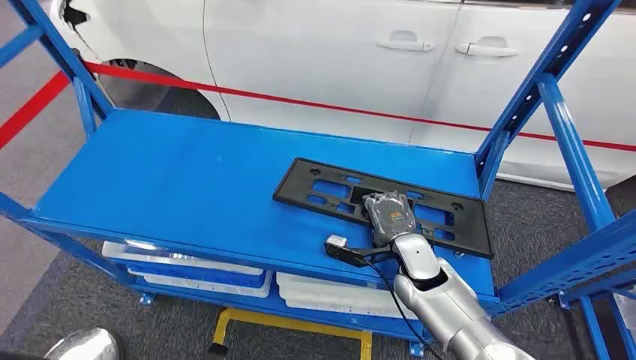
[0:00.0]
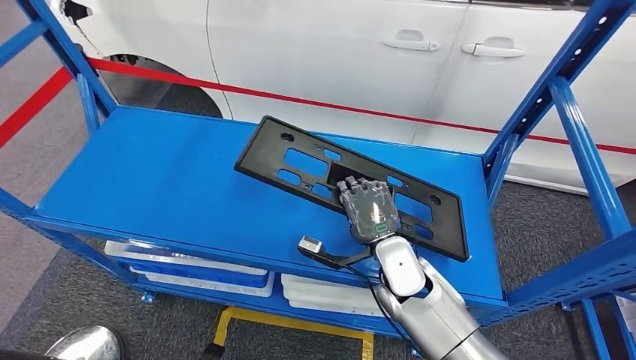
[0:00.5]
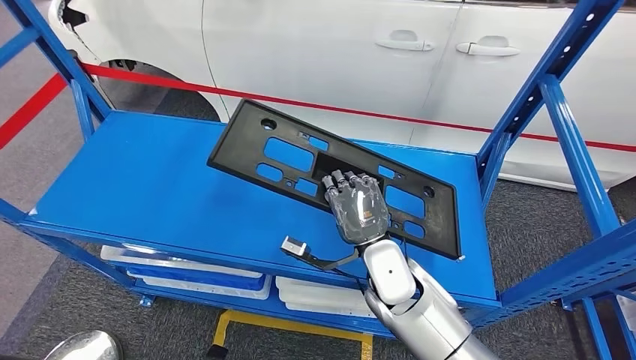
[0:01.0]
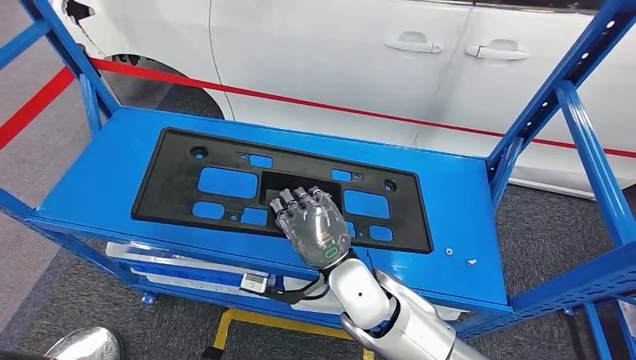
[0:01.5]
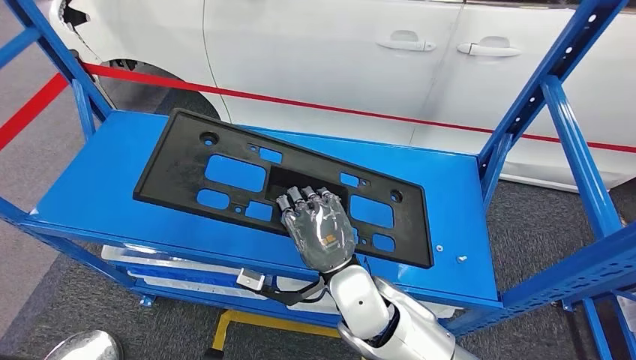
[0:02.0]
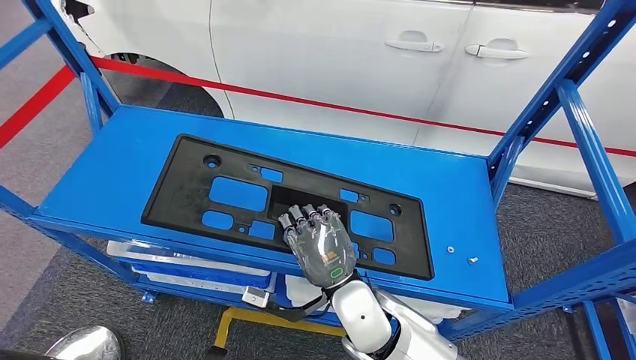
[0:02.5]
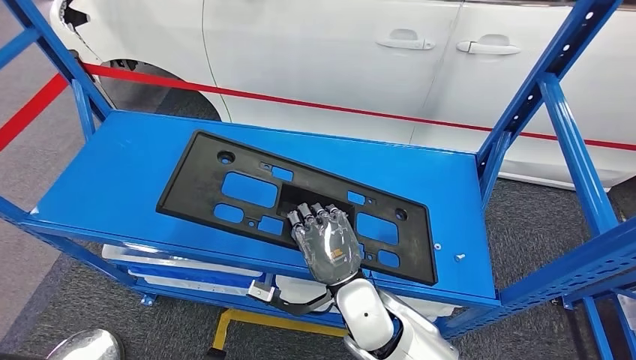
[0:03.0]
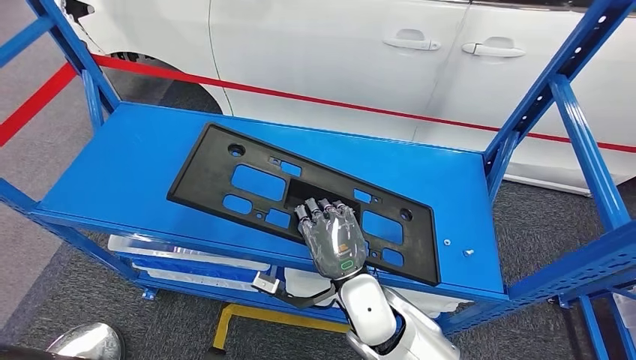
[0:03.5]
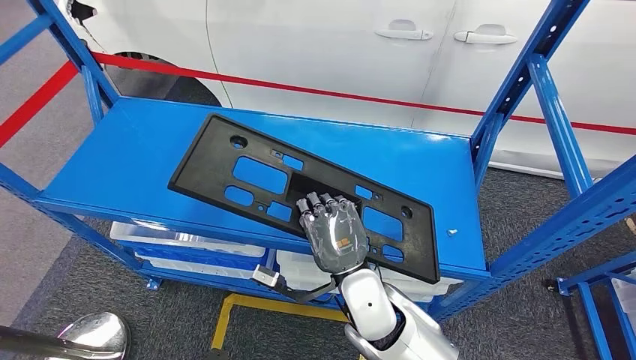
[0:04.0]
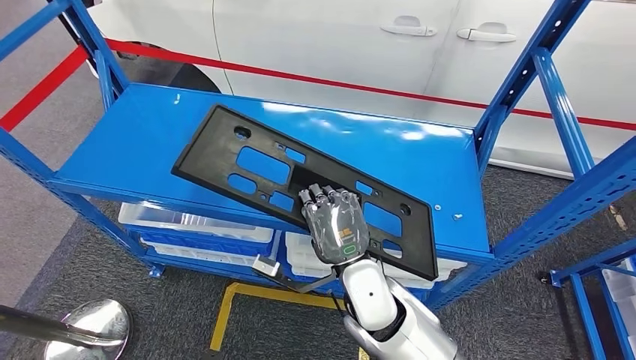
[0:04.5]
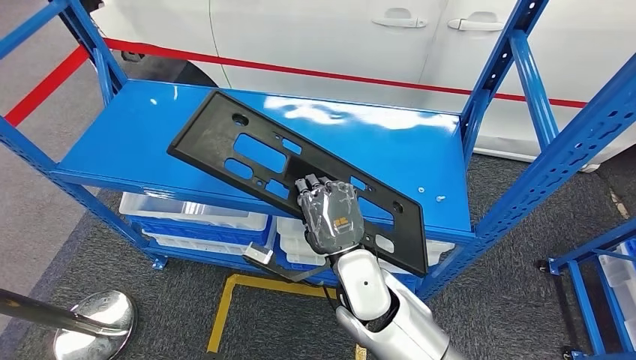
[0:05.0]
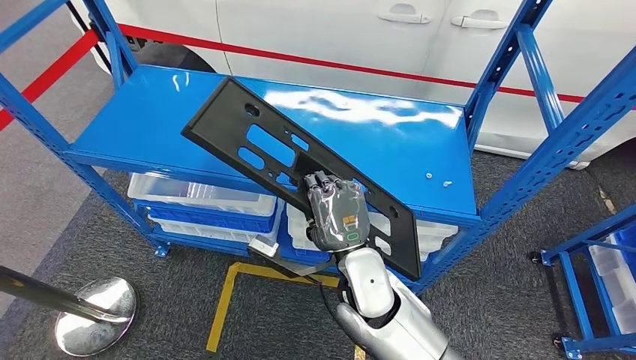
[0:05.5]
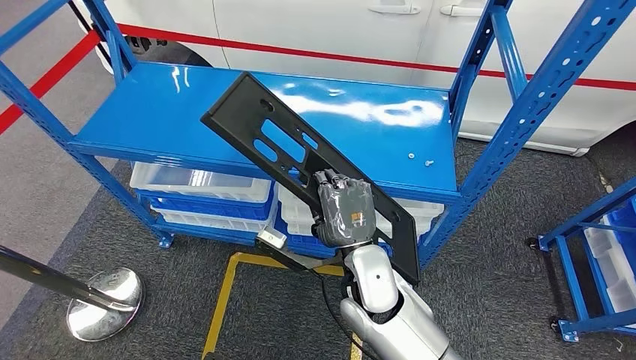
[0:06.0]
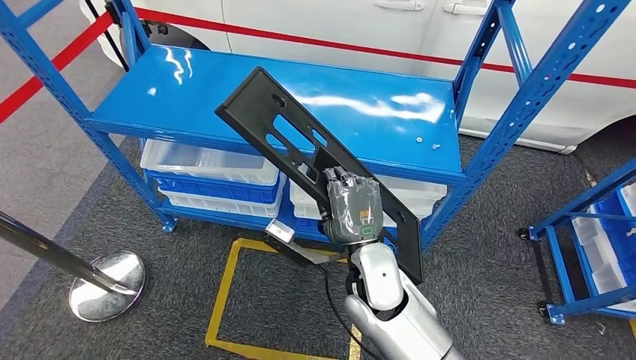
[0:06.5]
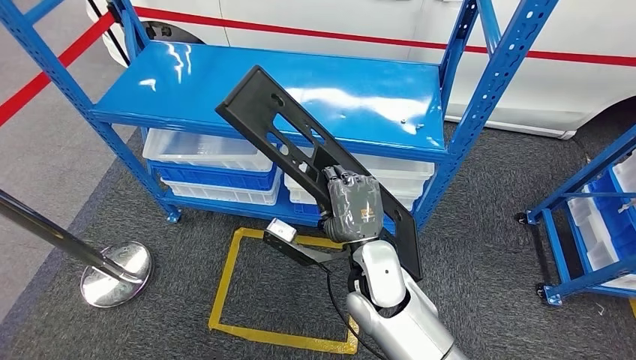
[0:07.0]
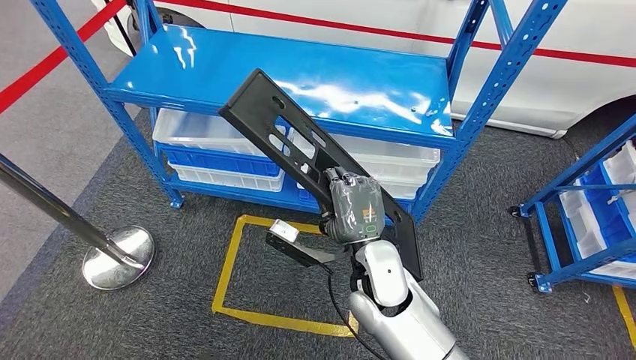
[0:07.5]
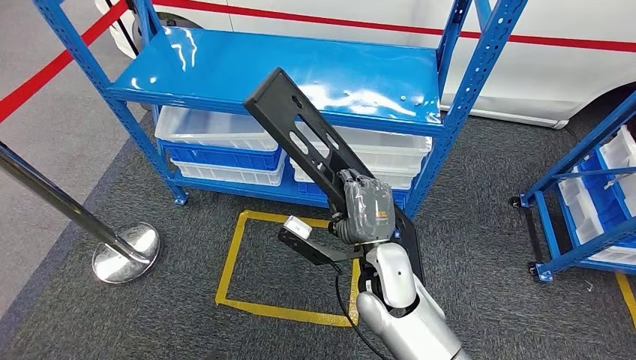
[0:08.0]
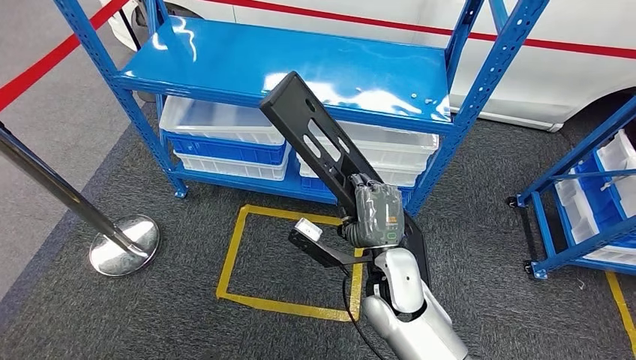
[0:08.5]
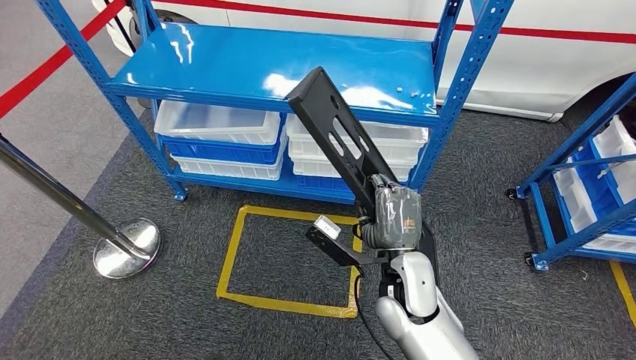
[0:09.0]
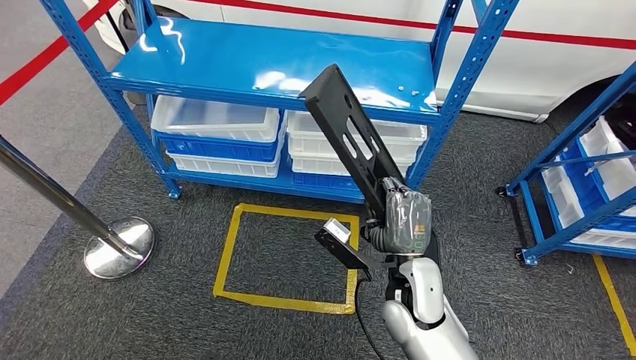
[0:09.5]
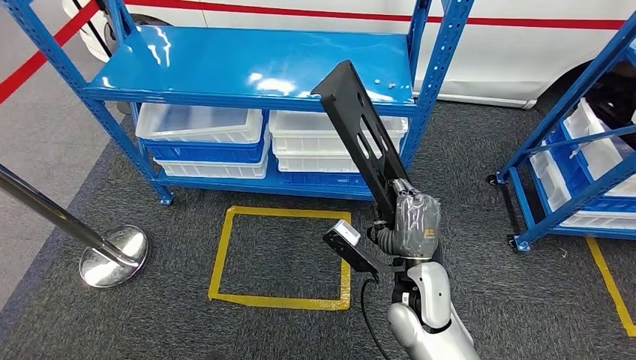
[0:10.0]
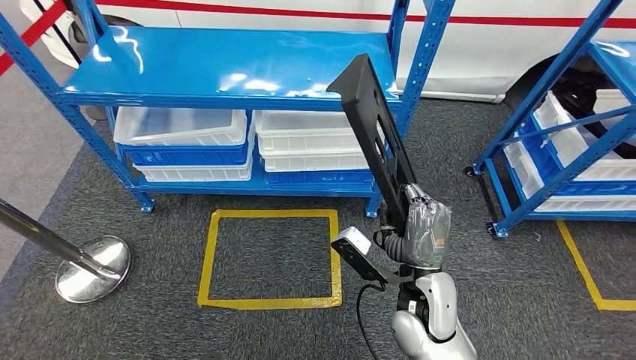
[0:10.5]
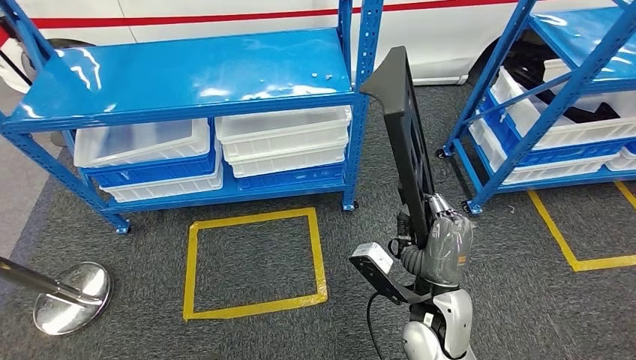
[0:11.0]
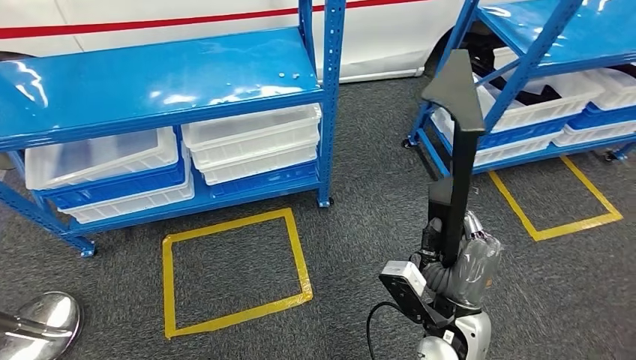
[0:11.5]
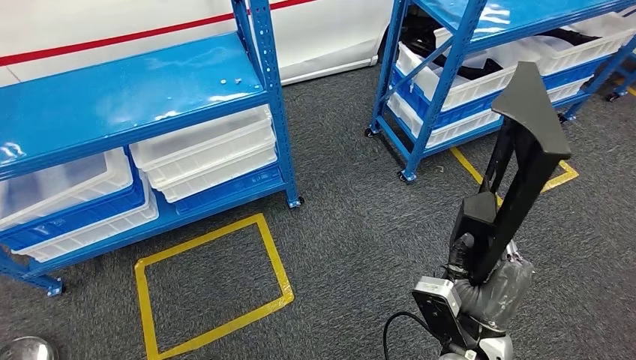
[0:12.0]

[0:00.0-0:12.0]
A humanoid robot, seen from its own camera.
Step, 0:00.0 to 0:05.5: Pick up the large material from the shelf.

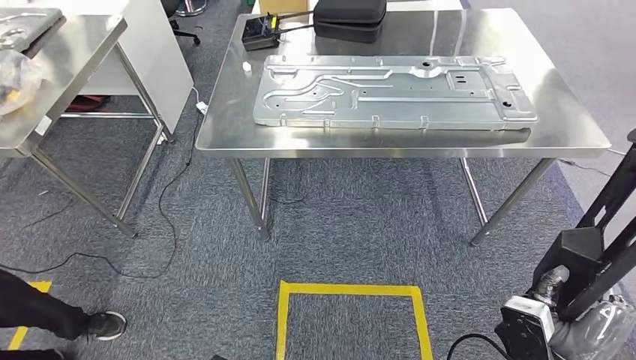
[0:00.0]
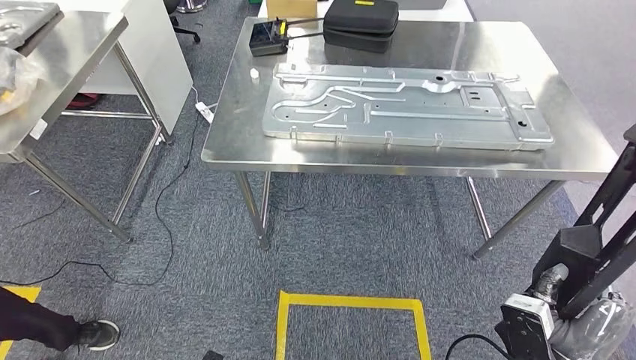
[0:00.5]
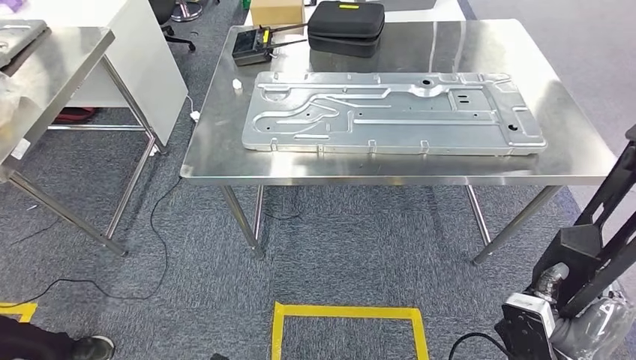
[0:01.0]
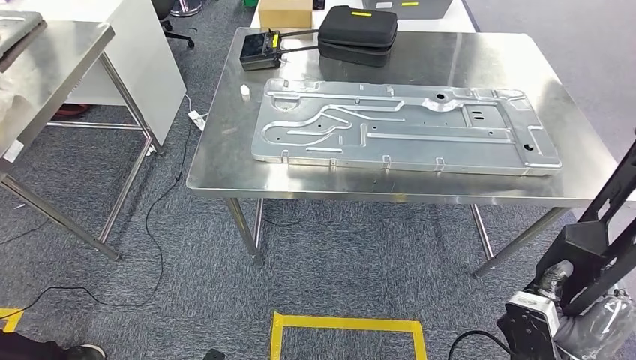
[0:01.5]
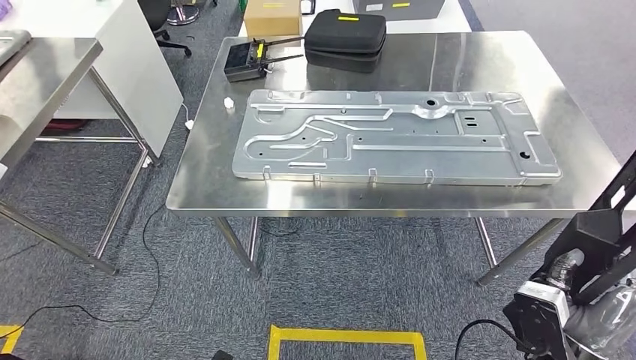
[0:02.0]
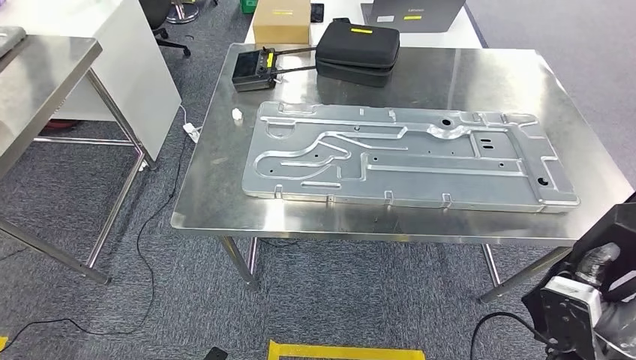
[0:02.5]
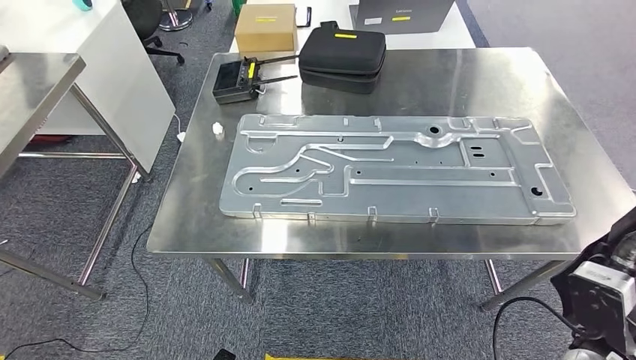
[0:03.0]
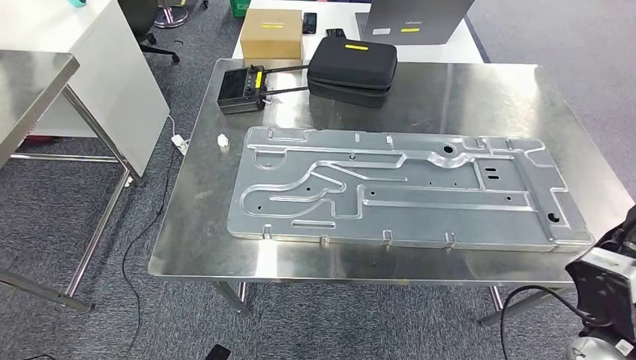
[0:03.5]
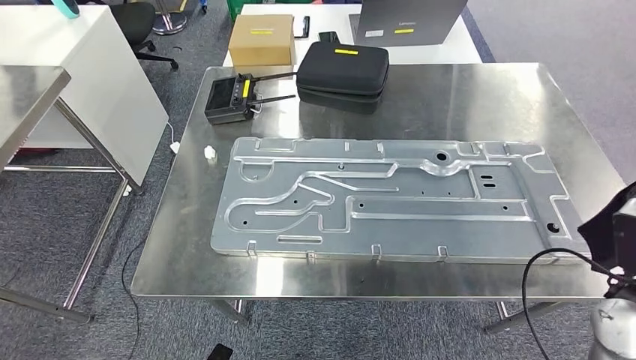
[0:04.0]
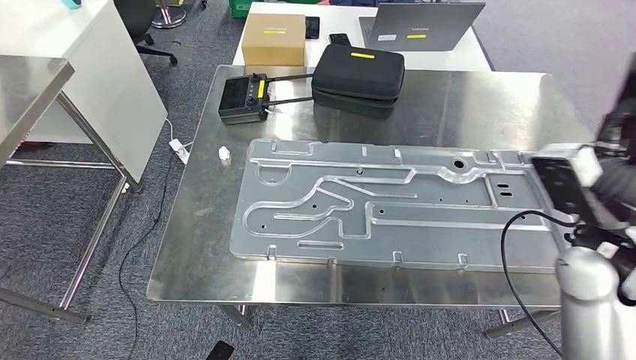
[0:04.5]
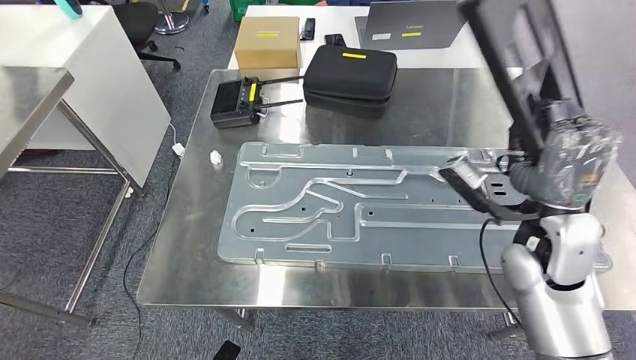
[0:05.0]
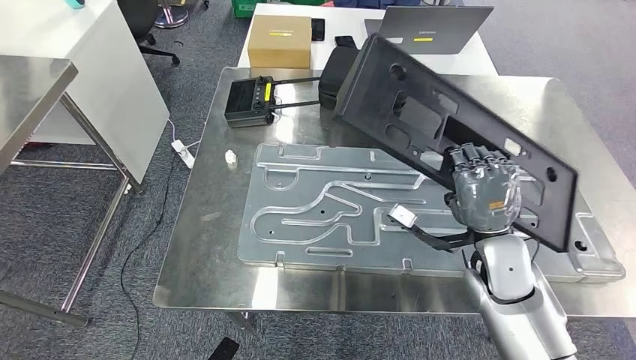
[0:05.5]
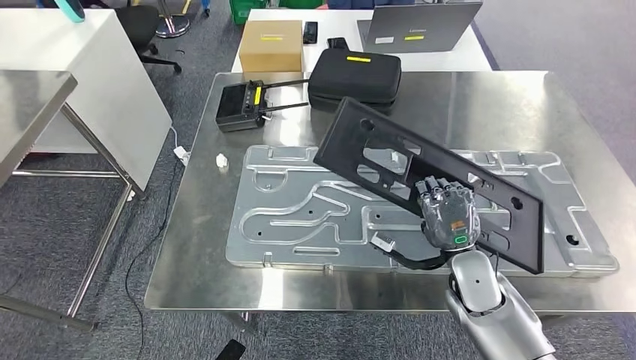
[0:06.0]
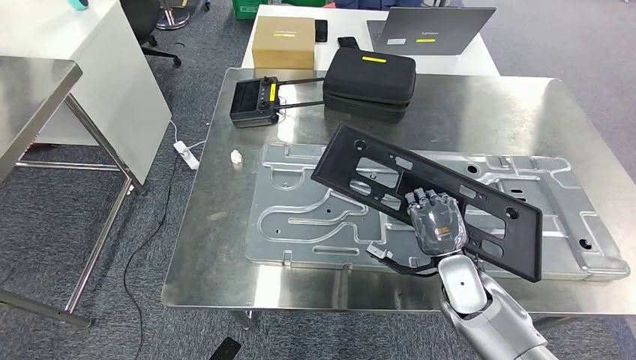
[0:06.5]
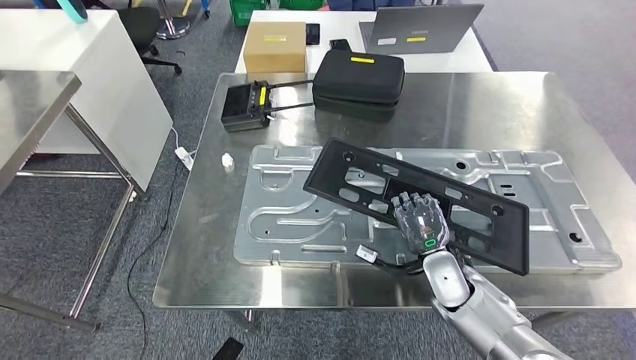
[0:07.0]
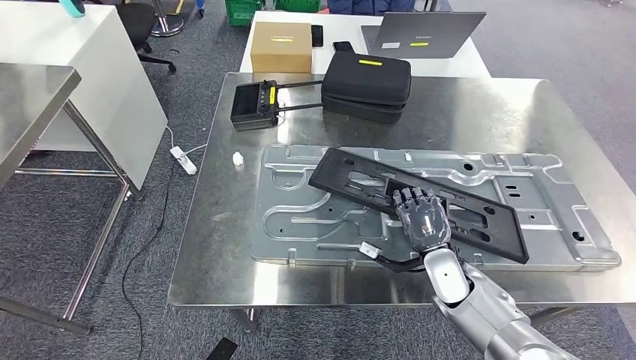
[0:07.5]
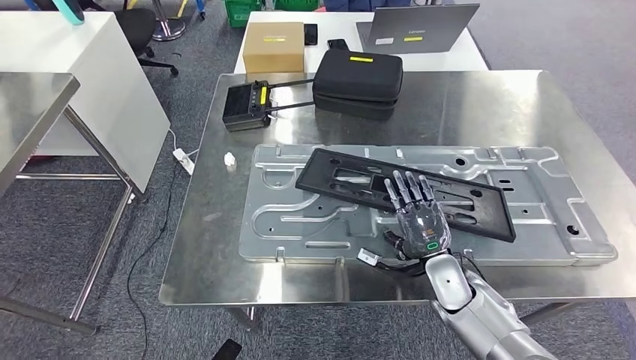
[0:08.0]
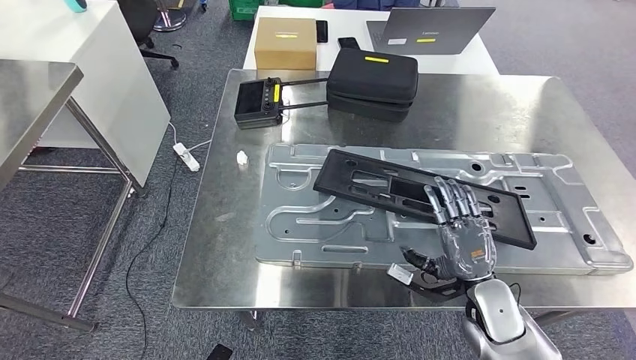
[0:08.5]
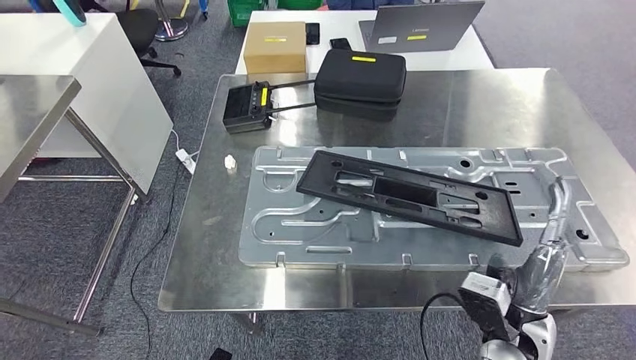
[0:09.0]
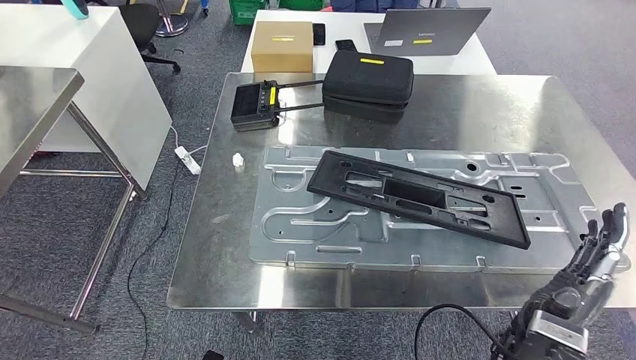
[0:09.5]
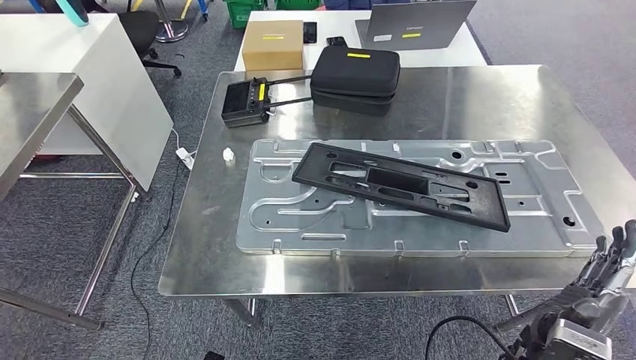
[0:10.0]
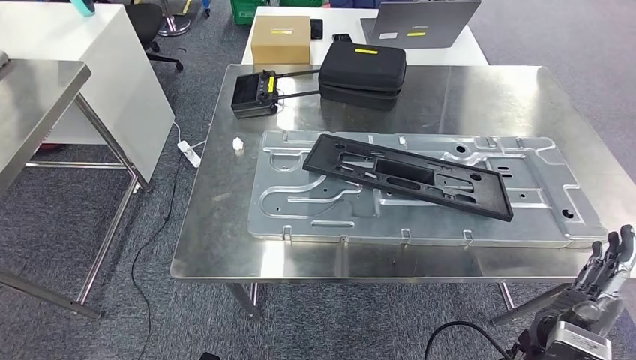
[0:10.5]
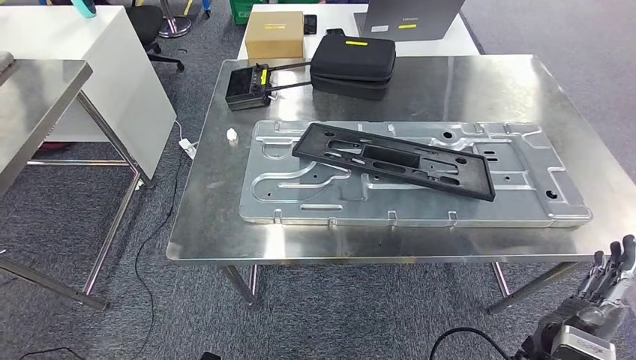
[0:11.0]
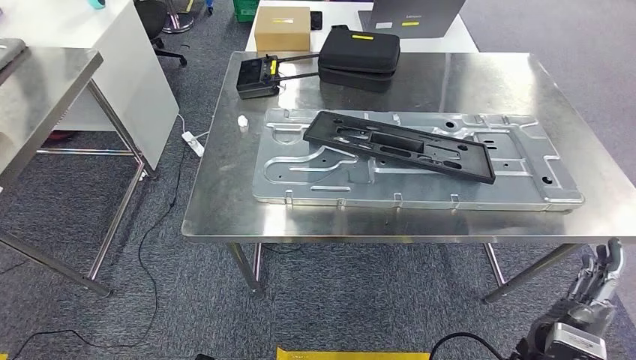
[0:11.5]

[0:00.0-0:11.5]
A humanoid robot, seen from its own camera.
Step, 0:04.5 to 0:09.0: Insert the large material into the corresponding slot on the workbench.
